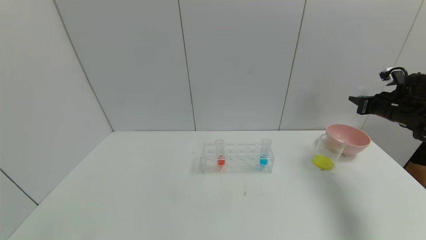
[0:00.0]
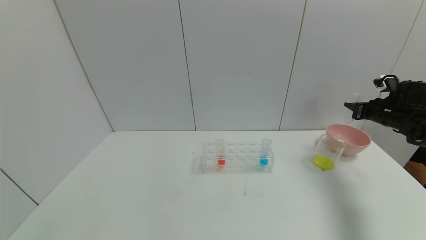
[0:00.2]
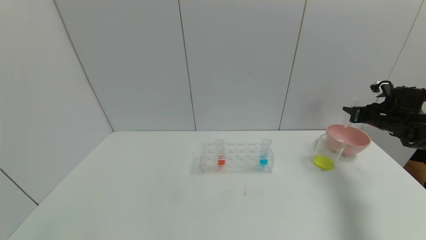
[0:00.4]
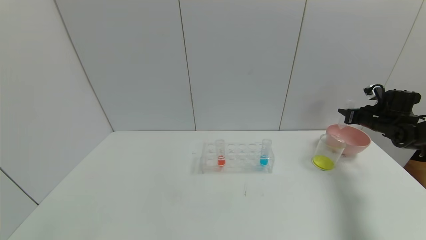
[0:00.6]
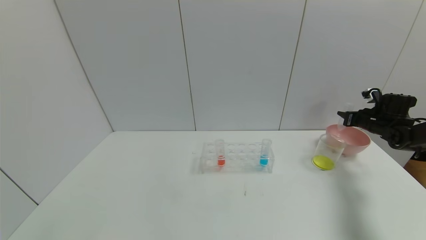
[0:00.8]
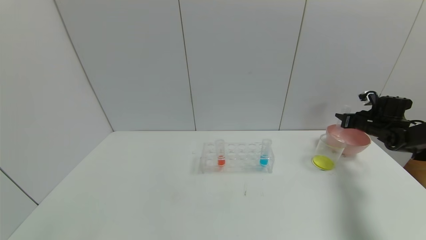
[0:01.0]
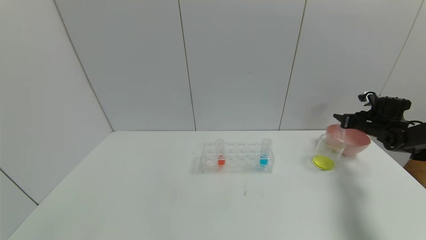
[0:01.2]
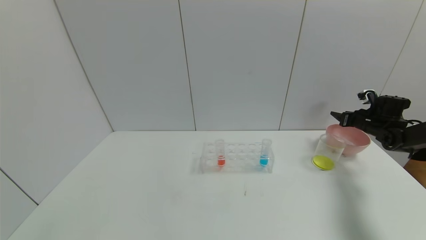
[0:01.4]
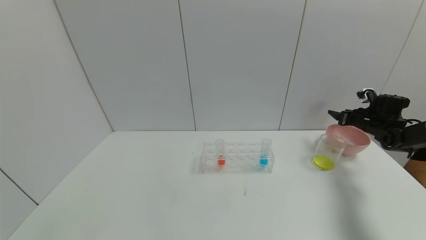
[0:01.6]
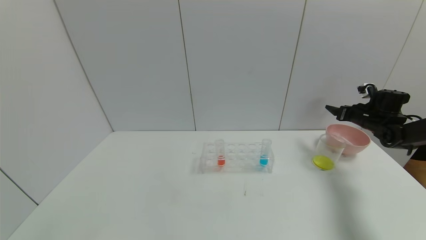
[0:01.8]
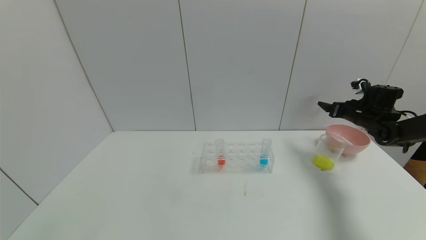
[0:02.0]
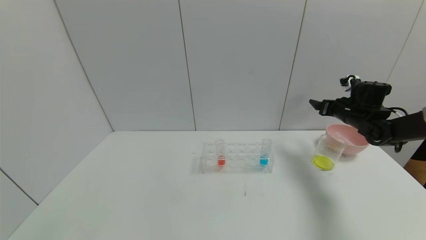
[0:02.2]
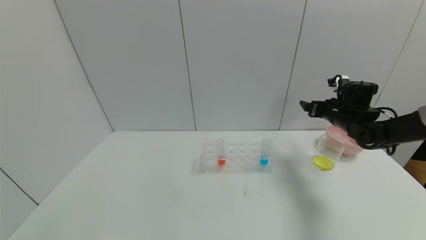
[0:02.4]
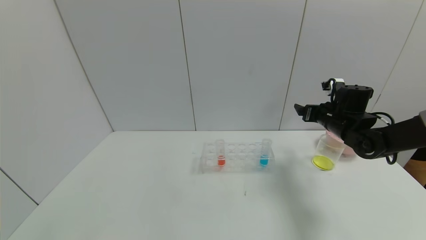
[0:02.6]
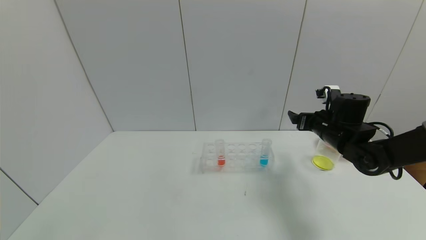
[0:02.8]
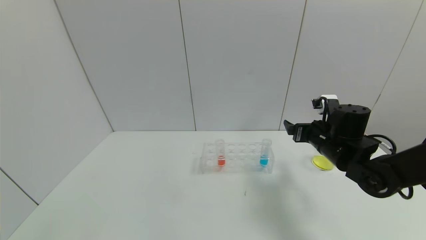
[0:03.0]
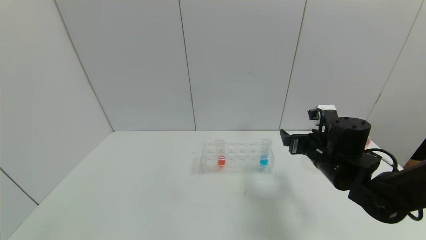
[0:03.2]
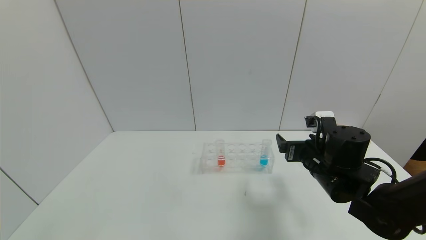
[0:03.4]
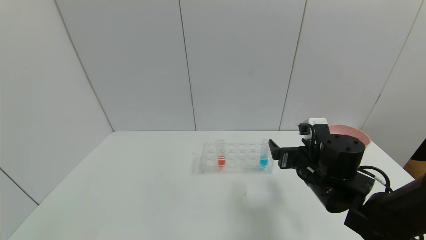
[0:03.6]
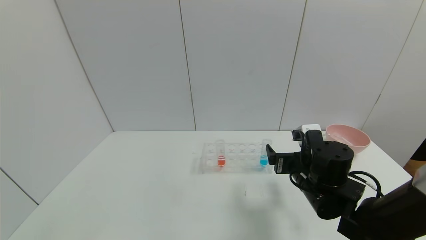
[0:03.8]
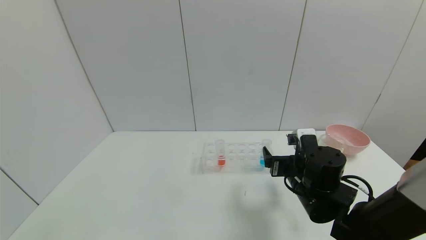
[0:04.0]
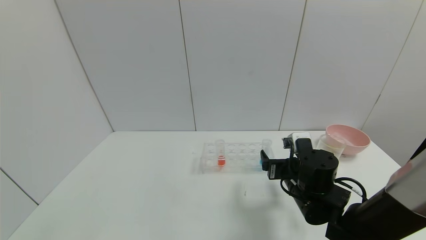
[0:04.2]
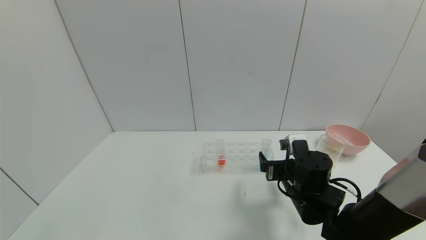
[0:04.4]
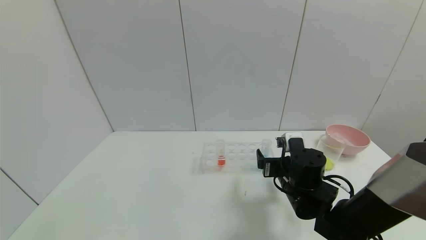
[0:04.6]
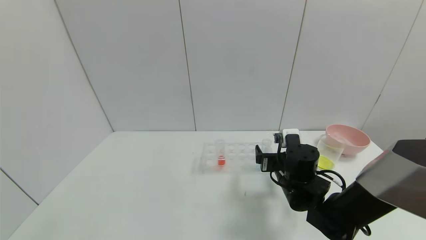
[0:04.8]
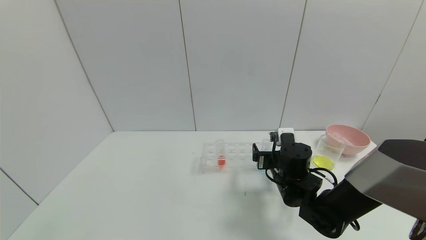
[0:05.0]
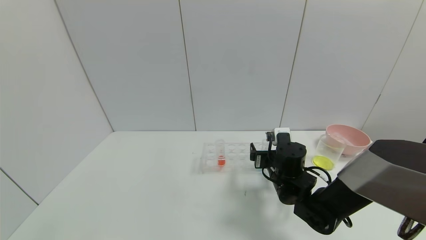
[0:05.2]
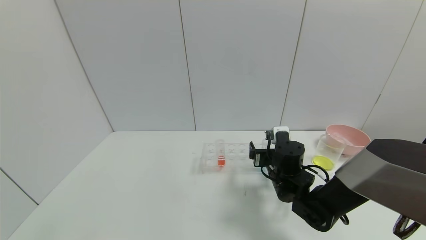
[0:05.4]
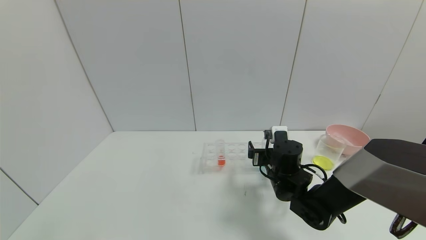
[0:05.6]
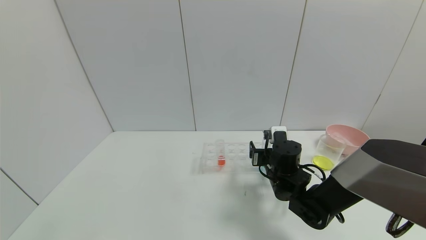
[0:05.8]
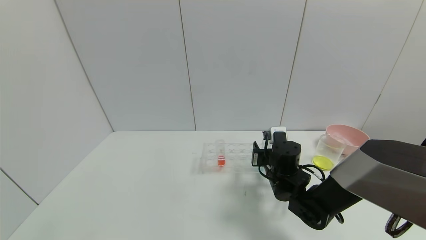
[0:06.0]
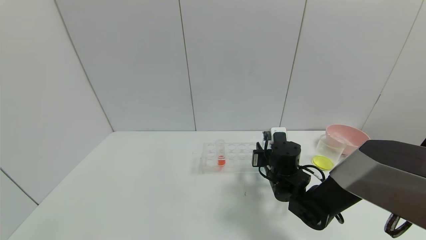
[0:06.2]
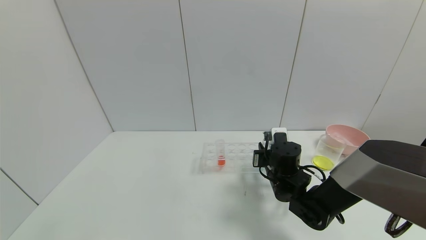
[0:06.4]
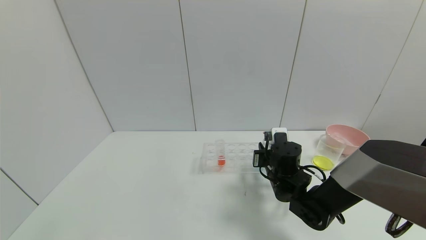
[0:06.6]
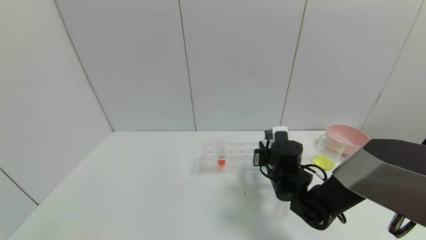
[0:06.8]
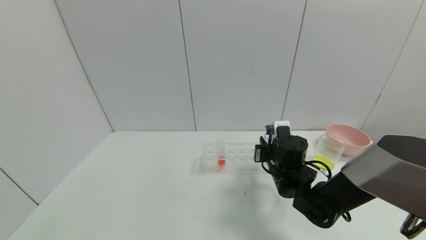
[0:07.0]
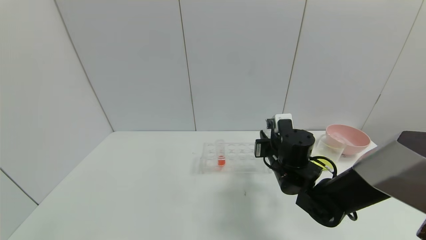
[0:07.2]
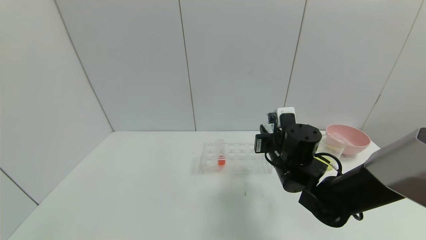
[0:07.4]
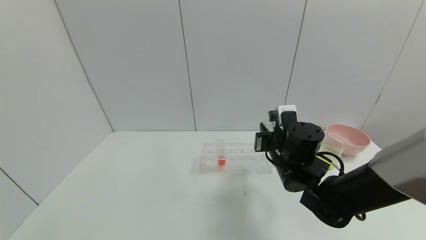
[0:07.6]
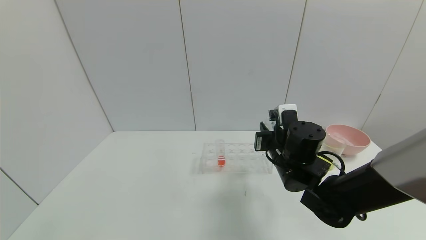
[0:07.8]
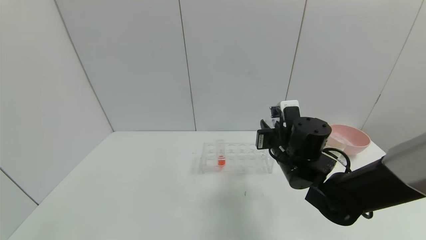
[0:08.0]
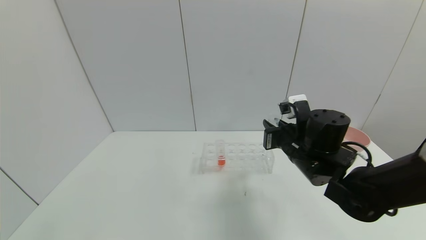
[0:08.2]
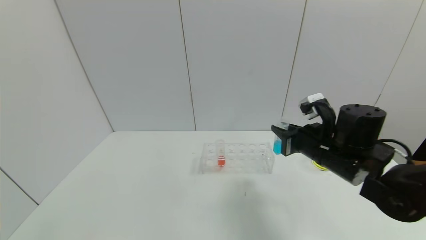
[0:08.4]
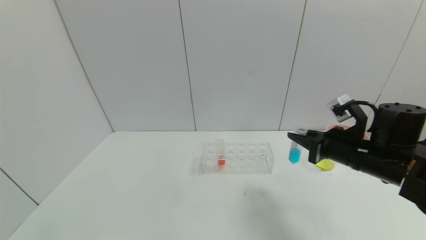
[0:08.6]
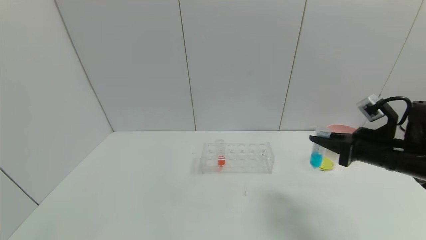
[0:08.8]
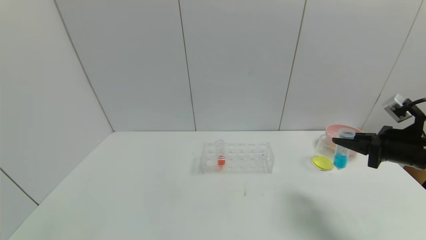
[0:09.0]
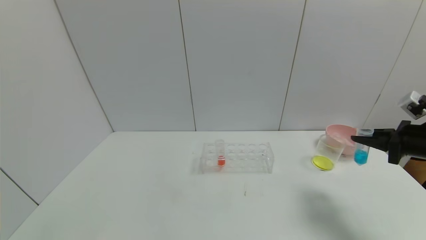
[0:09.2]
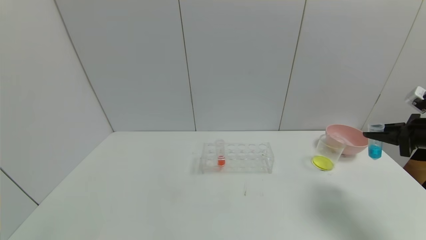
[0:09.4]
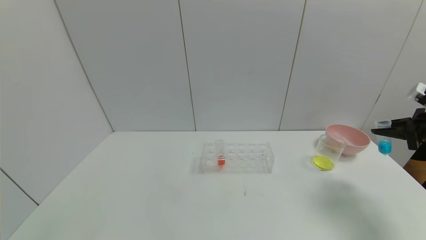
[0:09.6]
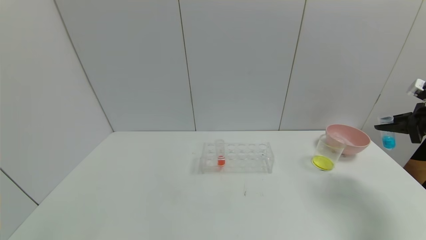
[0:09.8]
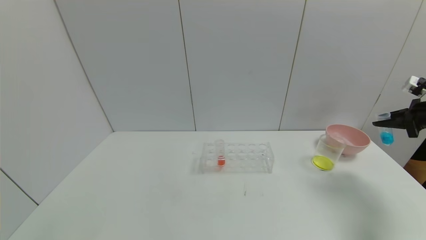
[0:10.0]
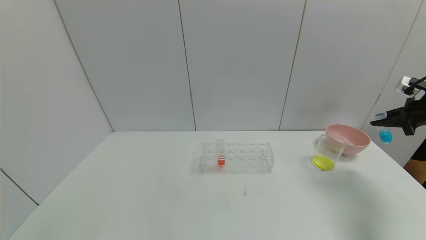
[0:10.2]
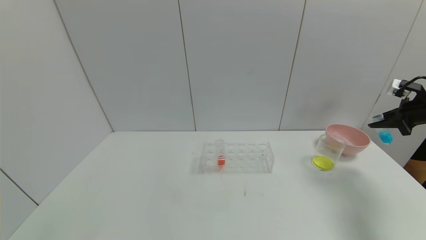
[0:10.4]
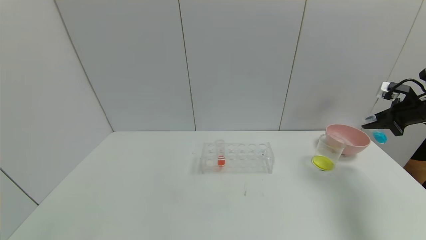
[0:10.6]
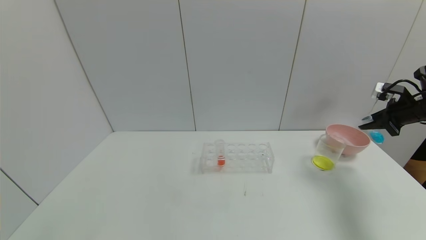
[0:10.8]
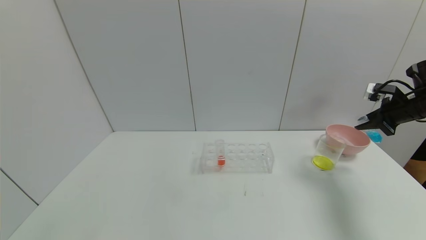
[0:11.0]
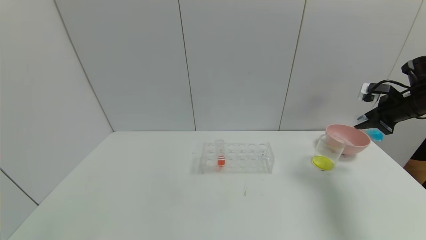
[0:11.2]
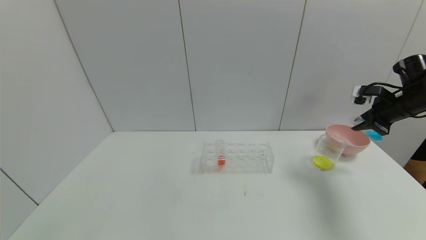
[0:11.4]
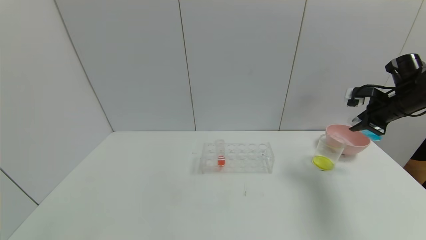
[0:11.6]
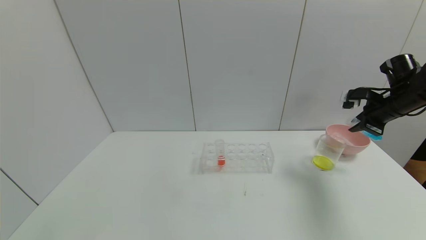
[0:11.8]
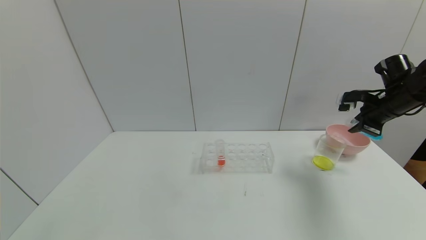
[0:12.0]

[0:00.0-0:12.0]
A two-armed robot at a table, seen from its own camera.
Task of the whole recording: pick up the test tube with yellow pigment and the test tube with blue pigment by grippers and pour them into the beaker.
Step, 0:01.4 to 0:06.6: Grasp the blue reagent with the right gripper.
0:00.0 to 0:01.6: The right gripper heads downward and forward, covering some 10 cm, and opens its fingers.
0:01.6 to 0:03.0: The right gripper heads to the left and backward, covering some 25 cm.
0:03.0 to 0:04.4: The right gripper moves to the left, downward and backward, roughly 10 cm.
0:04.4 to 0:06.0: The right gripper shifts approximately 5 cm forward, and closes.
0:06.0 to 0:07.6: The right gripper shifts some 5 cm upward, and closes up.
0:07.6 to 0:09.0: The right gripper travels to the right by roughly 25 cm.
0:09.0 to 0:10.4: The right gripper travels to the right and forward by approximately 15 cm.
0:10.4 to 0:12.0: The right gripper is displaced to the left by some 10 cm.

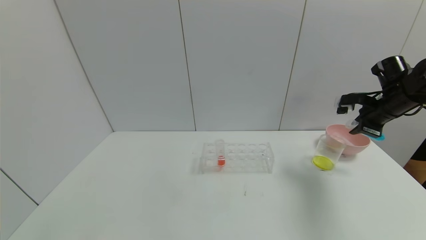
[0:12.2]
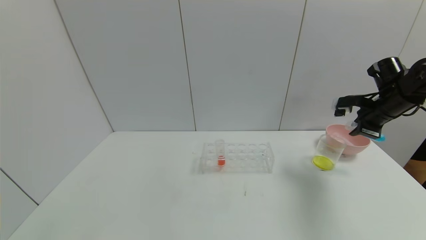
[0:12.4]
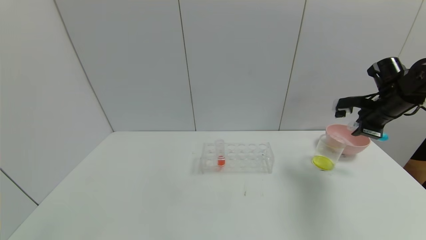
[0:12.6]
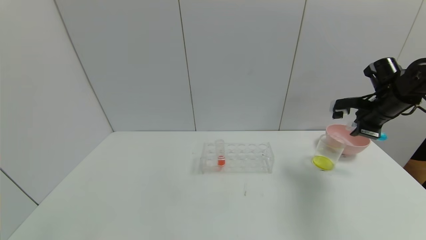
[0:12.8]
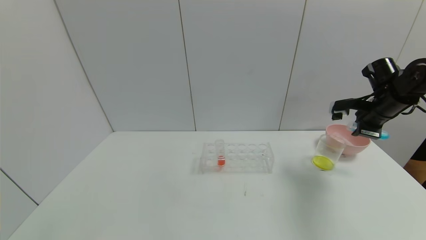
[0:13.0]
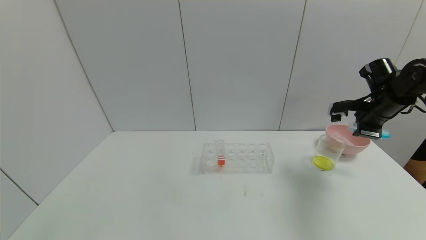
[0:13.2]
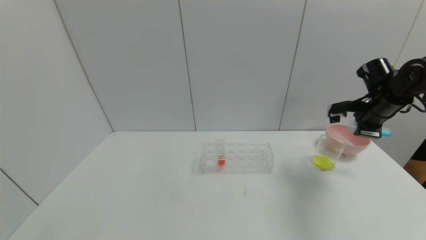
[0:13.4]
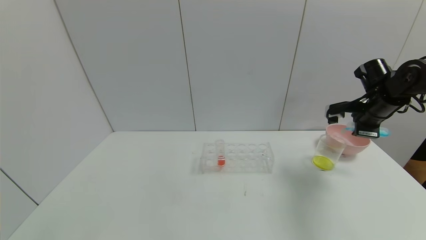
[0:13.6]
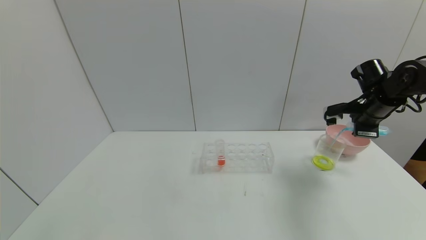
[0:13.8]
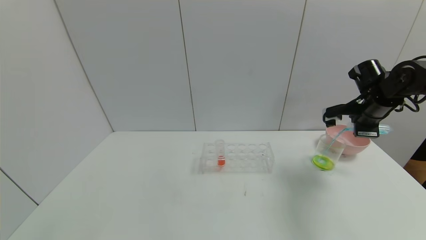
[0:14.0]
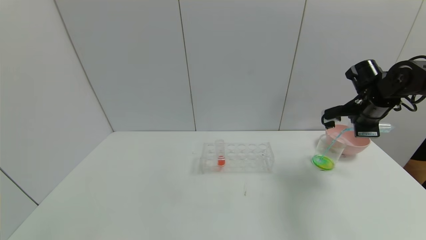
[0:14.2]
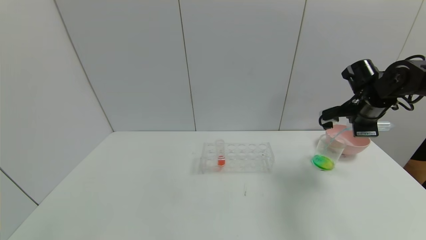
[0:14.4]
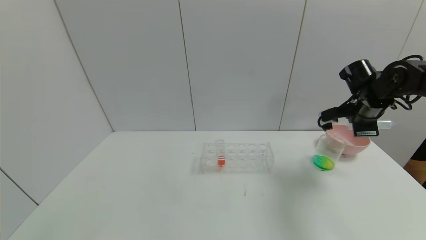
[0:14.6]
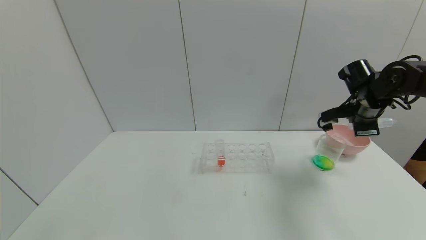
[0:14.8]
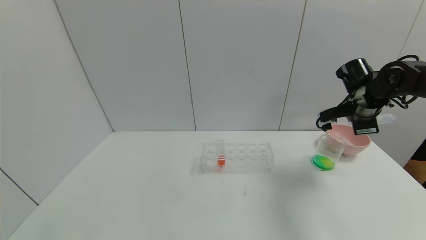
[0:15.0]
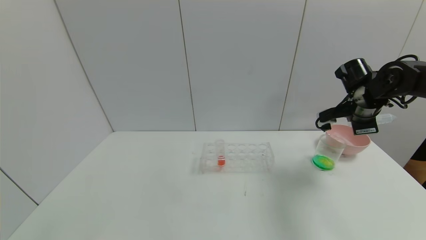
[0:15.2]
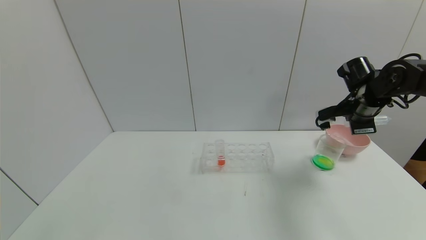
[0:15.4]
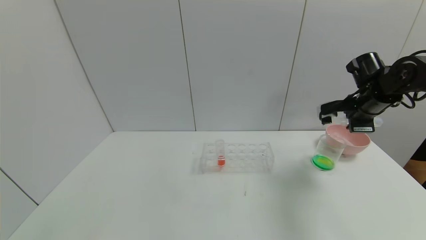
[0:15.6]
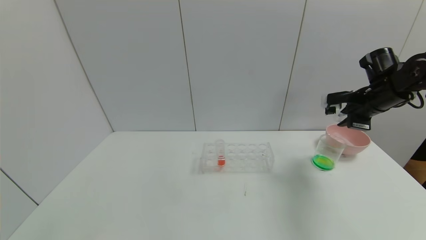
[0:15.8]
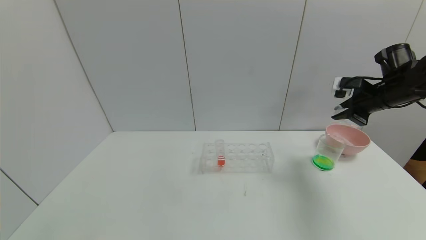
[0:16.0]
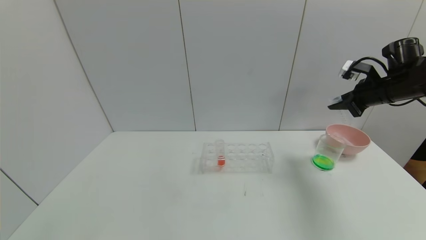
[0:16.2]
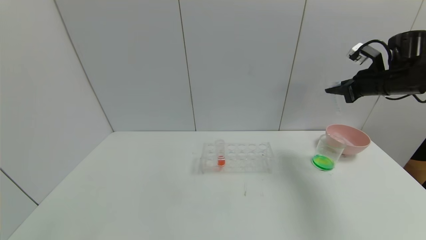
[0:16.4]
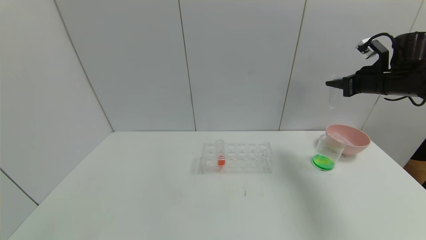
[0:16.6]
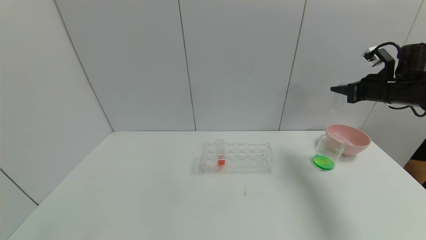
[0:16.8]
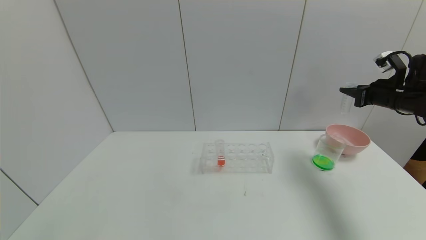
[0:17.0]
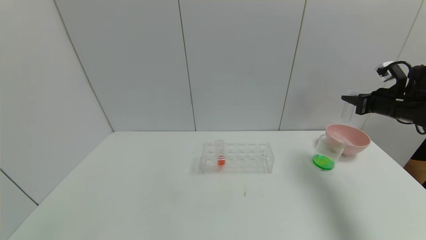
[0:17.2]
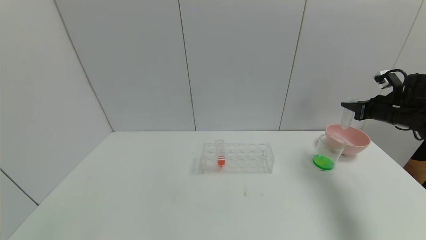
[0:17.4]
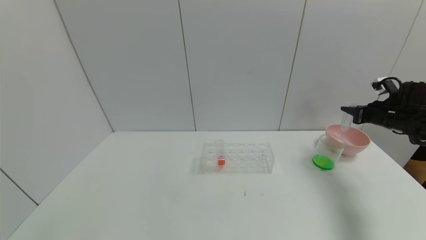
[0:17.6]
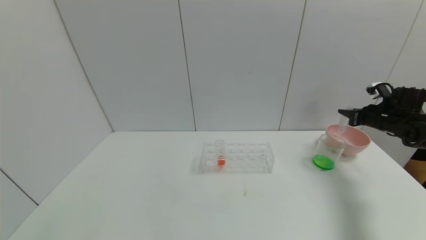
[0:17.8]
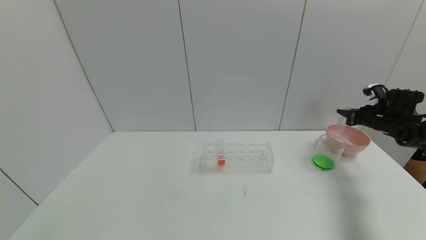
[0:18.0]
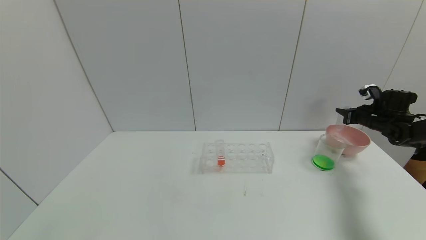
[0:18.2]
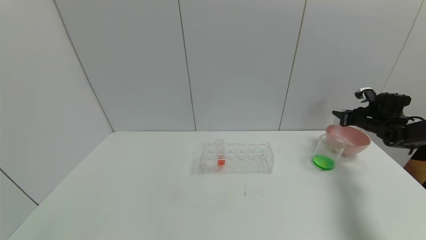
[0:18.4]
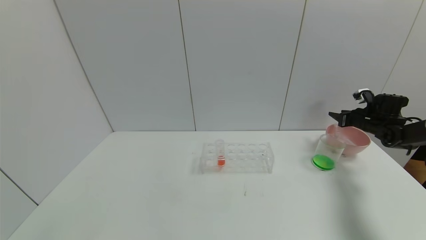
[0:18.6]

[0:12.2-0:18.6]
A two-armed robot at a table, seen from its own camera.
Task of the whole recording: pick up the test tube with yellow pigment and the test tube with blue pigment by grippers and pour them into the beaker.
Step, 0:12.2 to 0:15.2: Pour the blue reagent into the graduated cylinder with the right gripper.
0:12.2 to 0:13.8: The grippers stay close to where they were, moving slightly.
0:13.8 to 0:15.4: The grippers make only small movements.
0:15.4 to 0:17.0: The right gripper goes about 10 cm to the right.
0:17.0 to 0:18.6: The right gripper shifts roughly 15 cm downward, forward and to the right, and opens its fingers.
